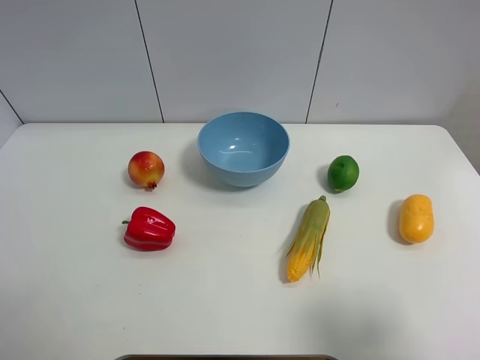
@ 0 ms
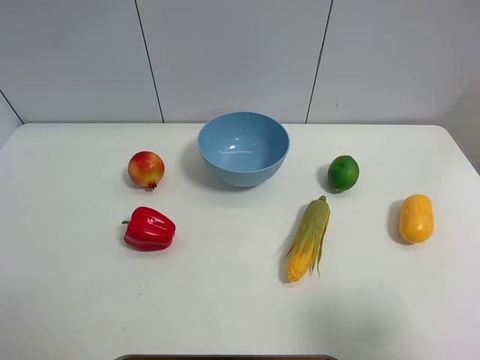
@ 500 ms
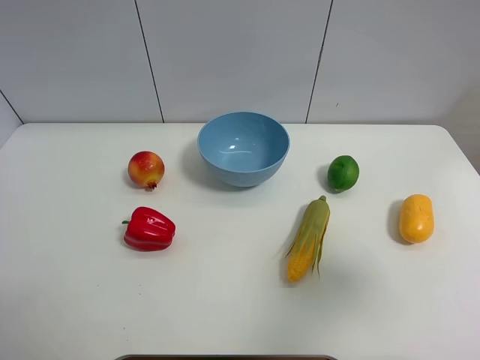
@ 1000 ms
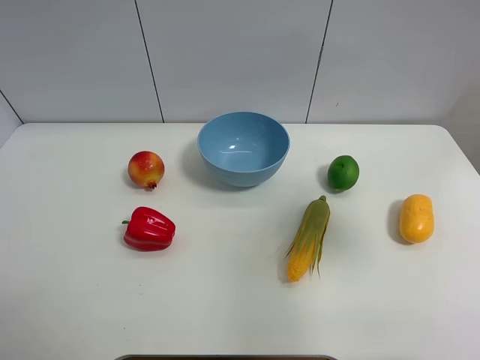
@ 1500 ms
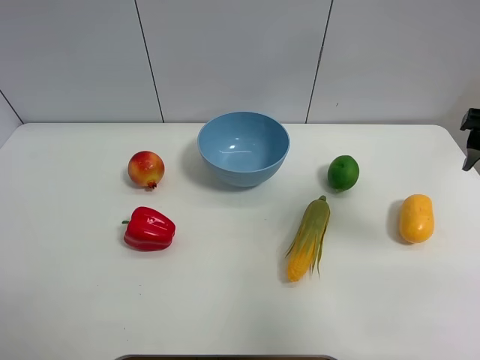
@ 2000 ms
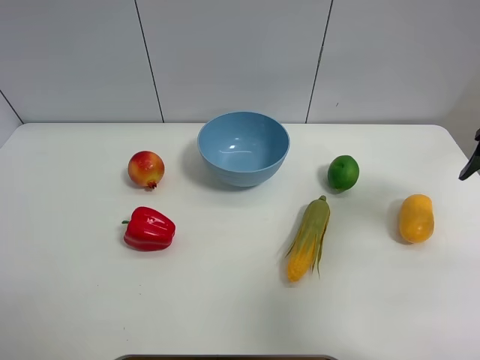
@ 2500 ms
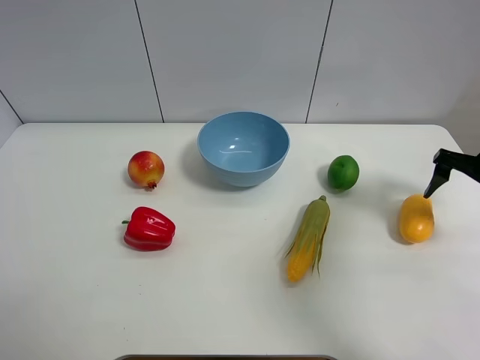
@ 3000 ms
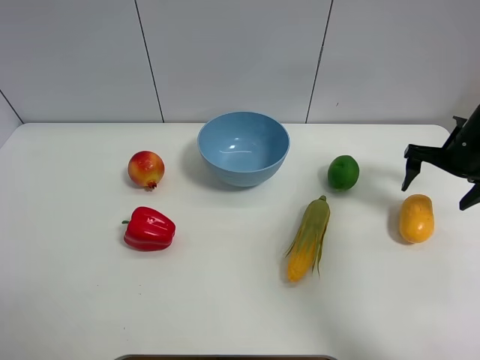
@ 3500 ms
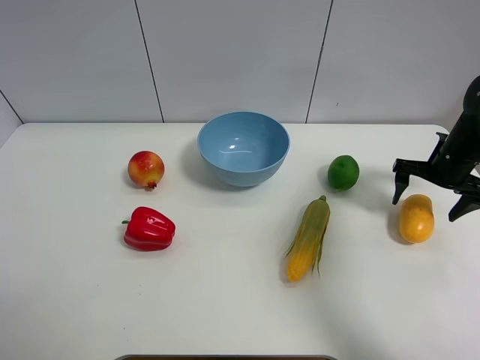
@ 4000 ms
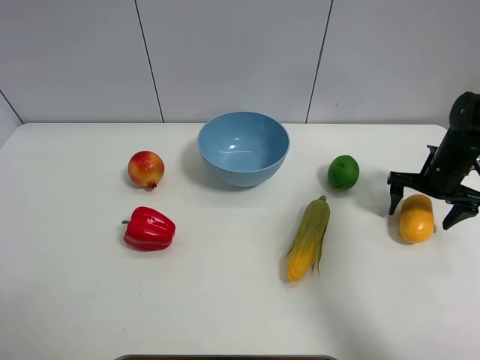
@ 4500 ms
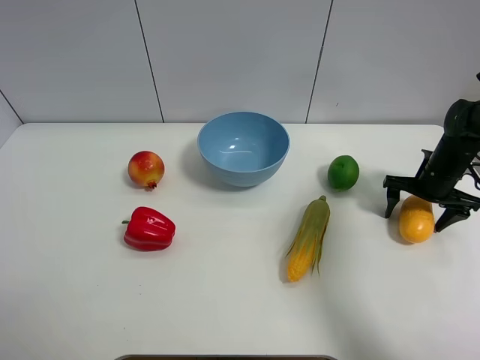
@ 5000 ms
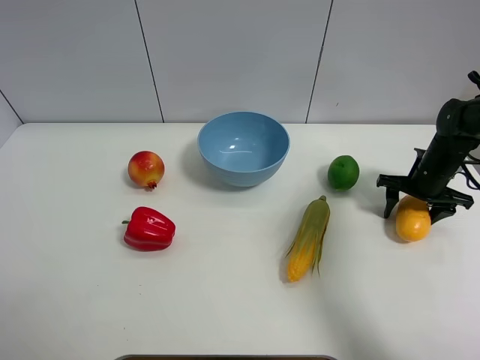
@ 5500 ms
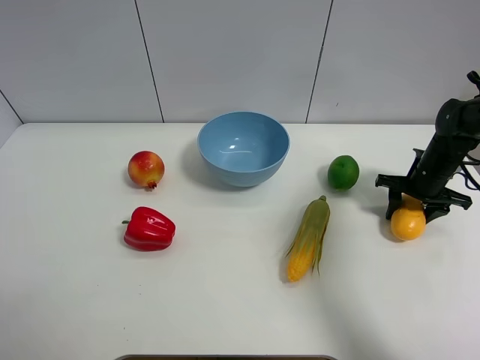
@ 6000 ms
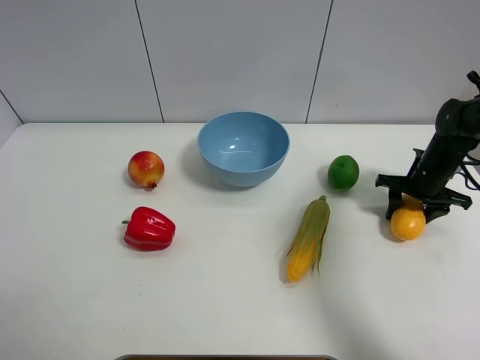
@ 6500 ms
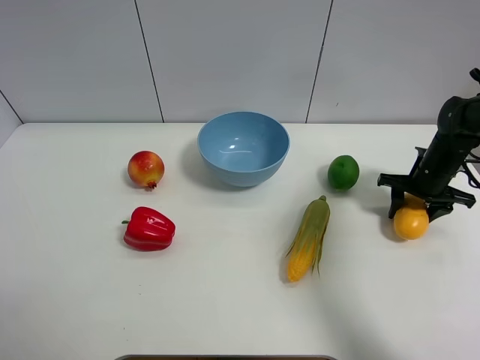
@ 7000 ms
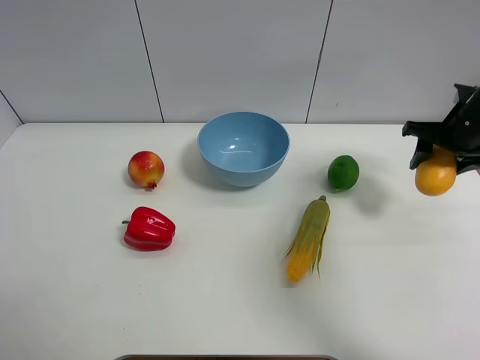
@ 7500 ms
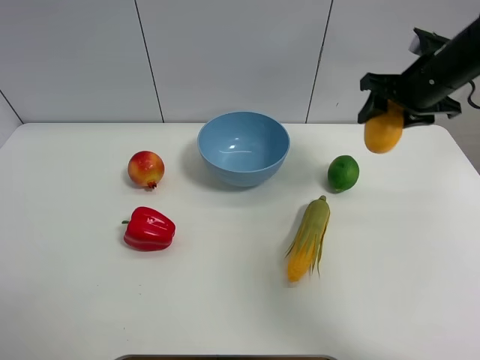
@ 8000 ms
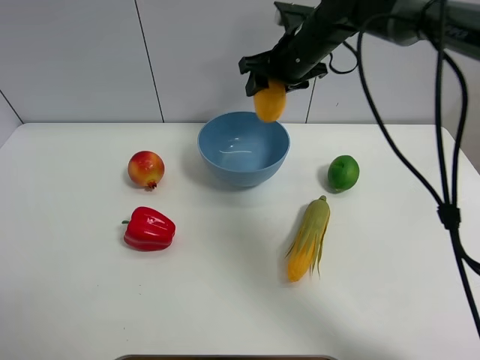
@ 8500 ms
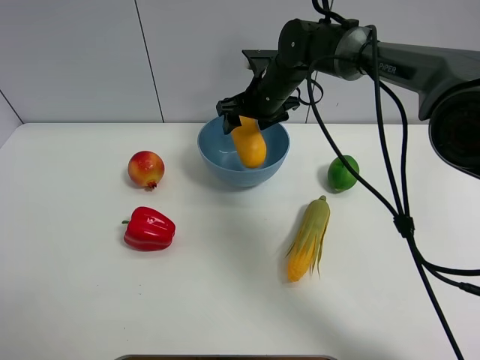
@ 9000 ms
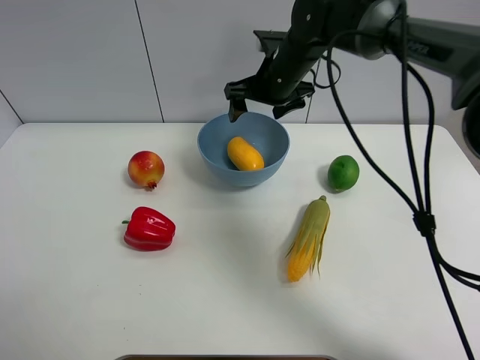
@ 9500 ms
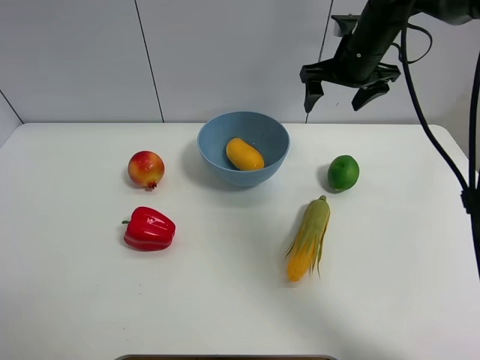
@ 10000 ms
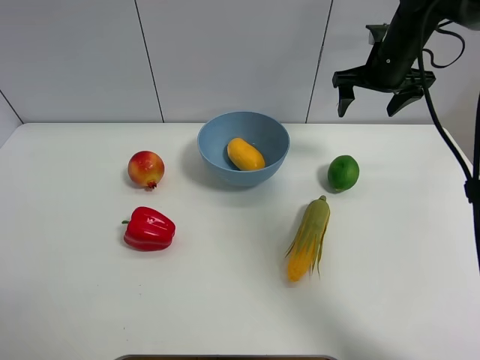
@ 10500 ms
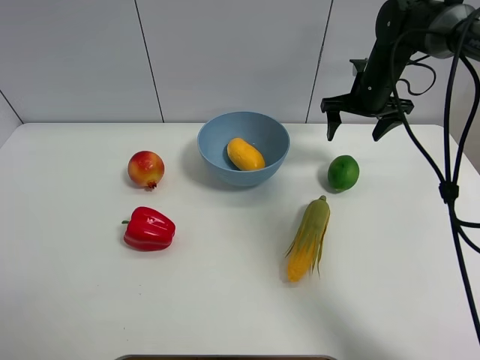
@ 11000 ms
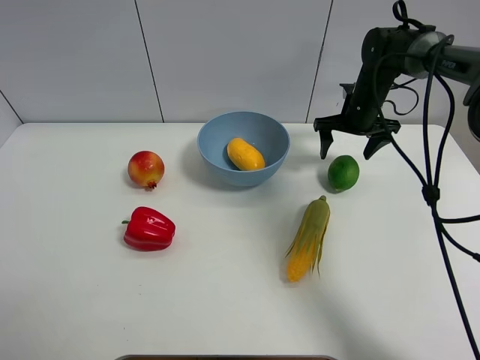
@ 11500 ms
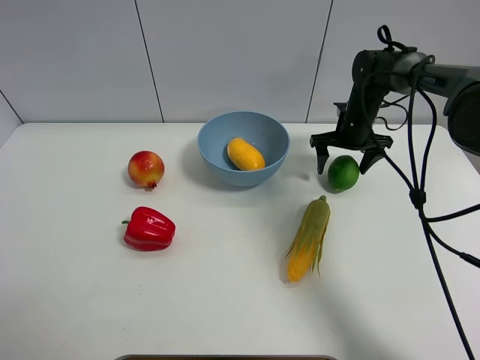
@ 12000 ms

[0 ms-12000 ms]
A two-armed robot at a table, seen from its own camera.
Task of the whole recording: Put the three fruits on the table into a bowl.
Step, 0 ms to 5500 ms: Grasp the mango with right gripper.
Step, 6000 ms to 9000 ms: Place the mango in the blue bowl with right gripper.
0 ms to 2000 ms: The right gripper travels forward by about 25 cm.
2000 ms to 4000 ms: The right gripper is displaced downward and forward by some 20 cm.
4000 ms to 6000 ms: The right gripper closes its fingers.
6000 ms to 8000 ms: The right gripper is displaced upward and to the left by about 20 cm.
8000 ms to 10000 ms: The right gripper heads forward, covering some 5 cm, reaches roughly 20 cm to the left, then returns, and opens its fingers.
10000 ms to 12000 ms: The right gripper travels downward by some 15 cm.

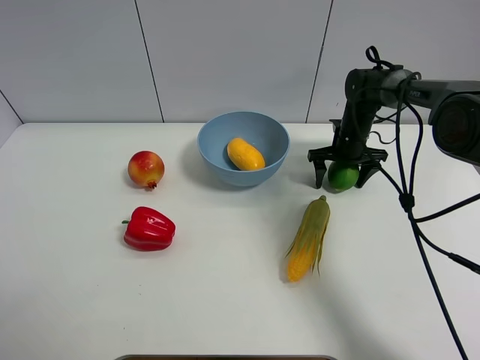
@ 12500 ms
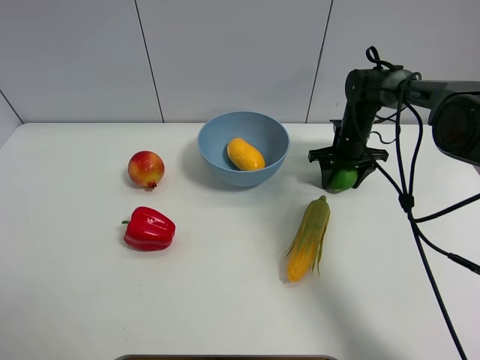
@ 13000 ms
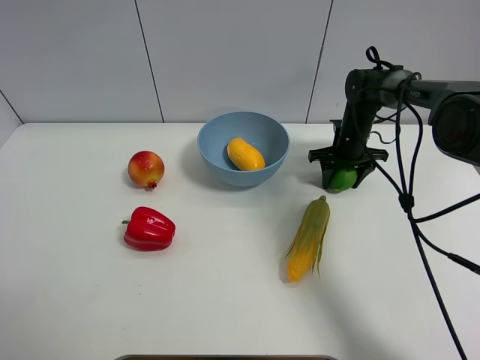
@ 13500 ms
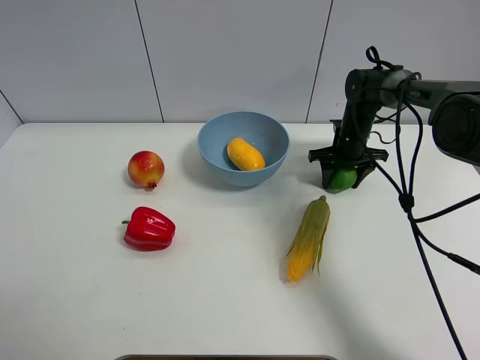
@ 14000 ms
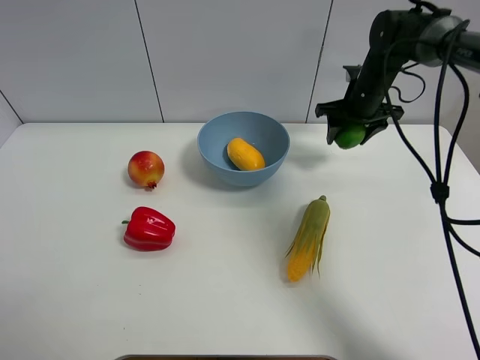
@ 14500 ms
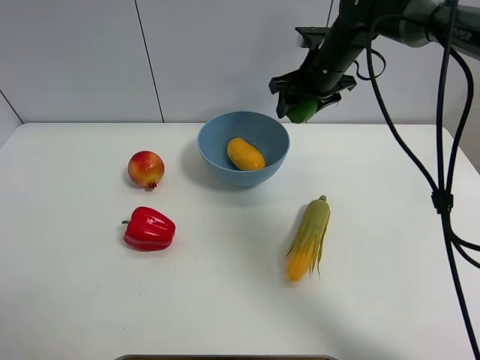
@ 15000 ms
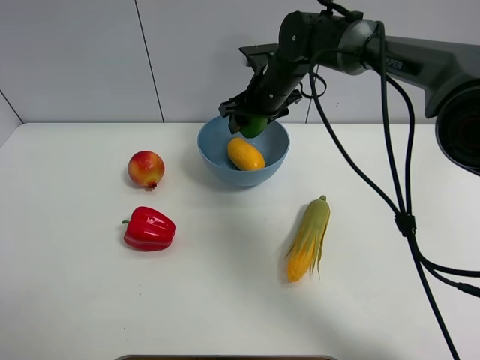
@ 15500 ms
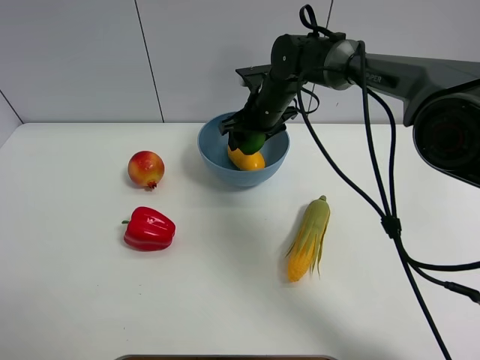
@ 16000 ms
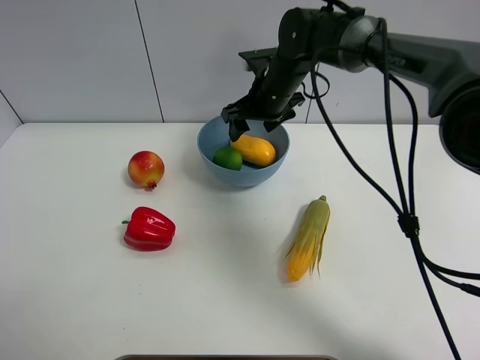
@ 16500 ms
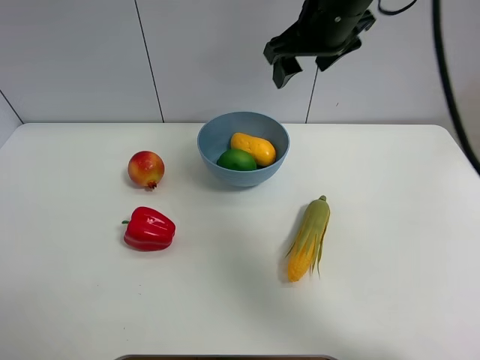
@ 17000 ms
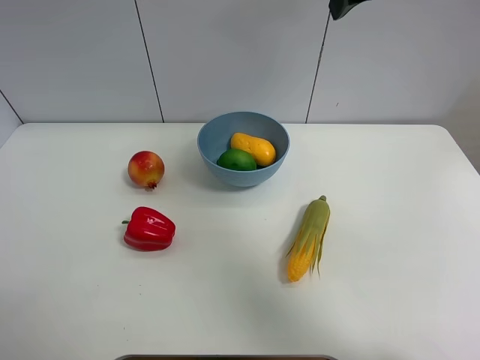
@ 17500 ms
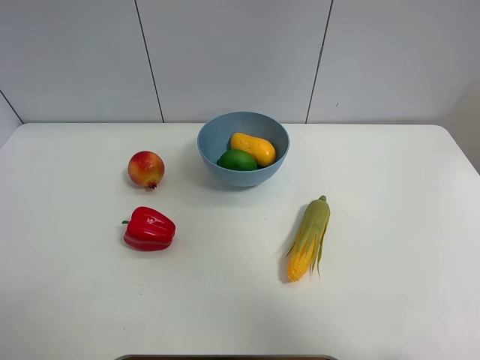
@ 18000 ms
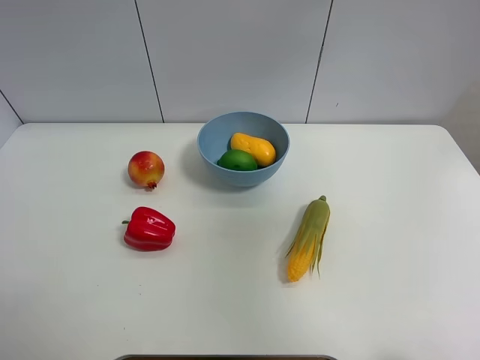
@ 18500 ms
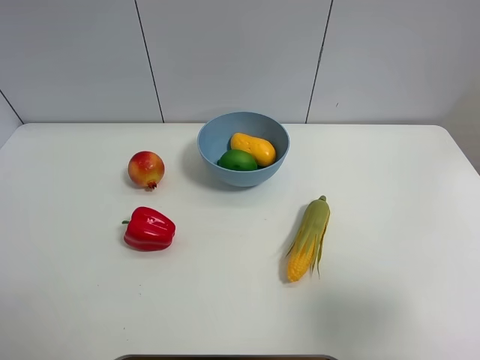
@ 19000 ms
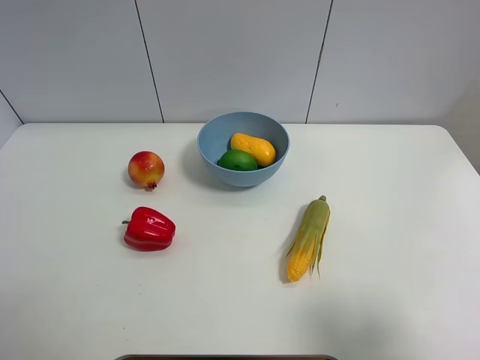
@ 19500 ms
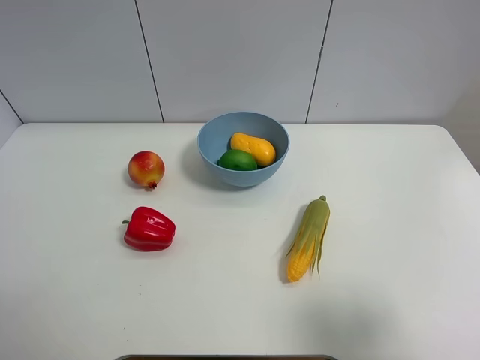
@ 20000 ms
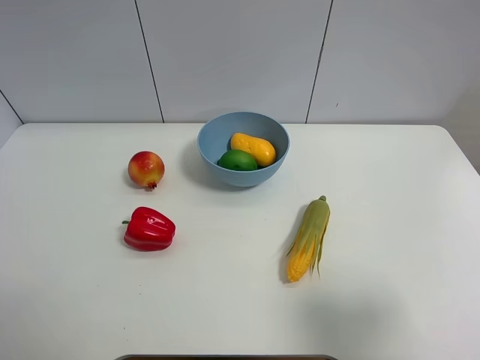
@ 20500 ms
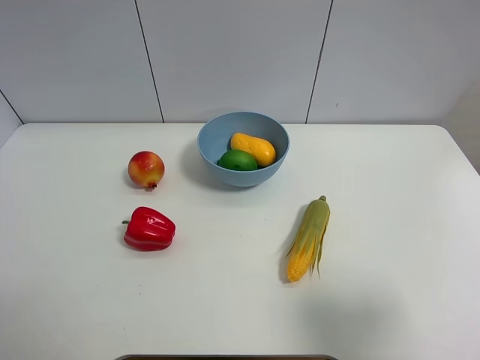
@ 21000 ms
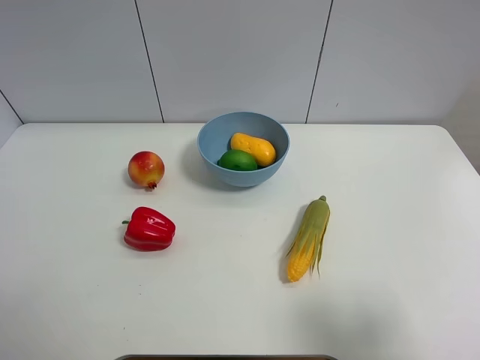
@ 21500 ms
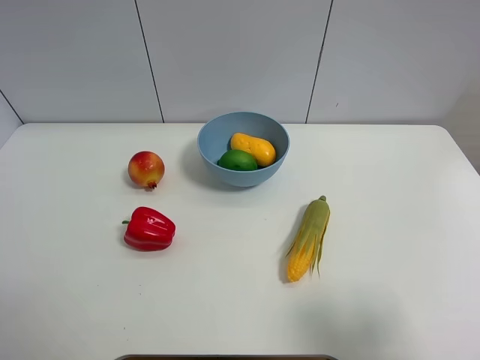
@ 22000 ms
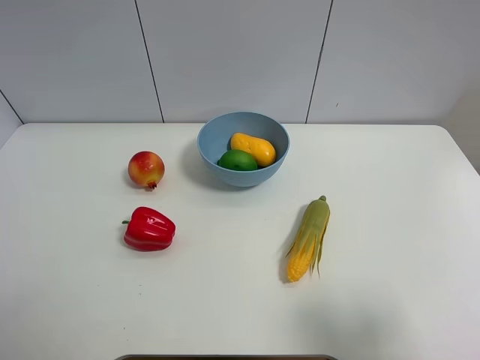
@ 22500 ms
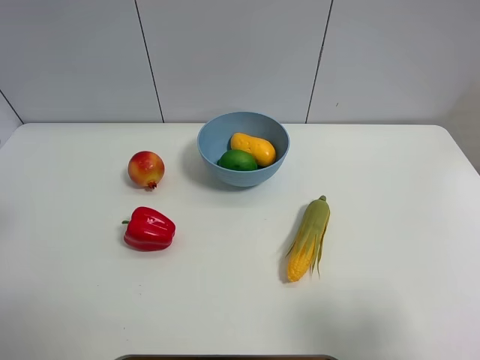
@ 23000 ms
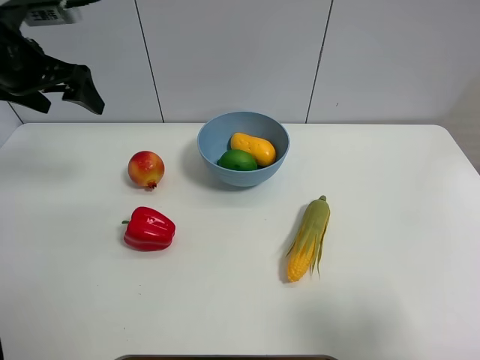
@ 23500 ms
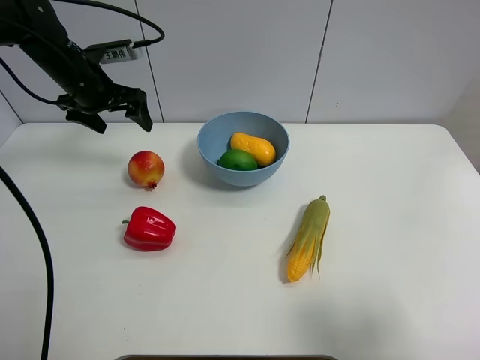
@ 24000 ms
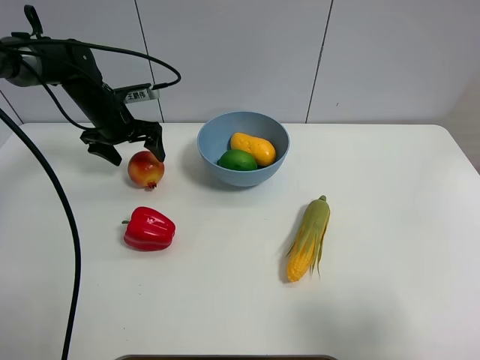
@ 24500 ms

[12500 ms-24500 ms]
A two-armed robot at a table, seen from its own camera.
Task of the whole recording: Put the three fruits on the table into a bowl.
Step, 13500 ms to 16000 ms: Place the green lemon in the blue bowl with right gripper.
12500 ms to 14500 ms: The right gripper goes some 10 cm upward, and closes.
14500 ms to 16500 ms: The right gripper is displaced to the left by about 15 cm.
16500 ms to 18500 ms: The right gripper shifts approximately 40 cm backward, to the right and upward.
18500 ms to 20500 ms: The right gripper travels downward and backward by roughly 15 cm, and opens.
22500 ms to 24500 ms: The left gripper heads forward and downward, covering roughly 40 cm.

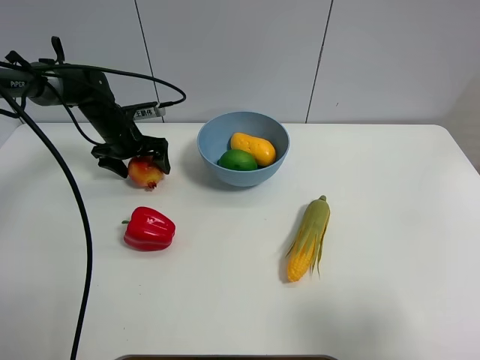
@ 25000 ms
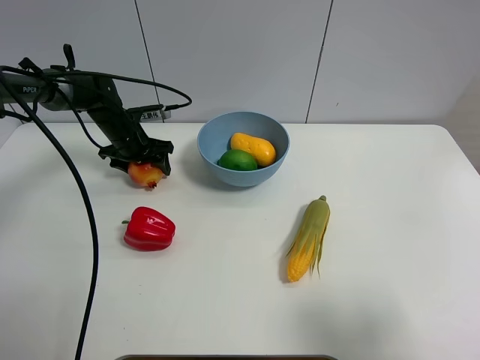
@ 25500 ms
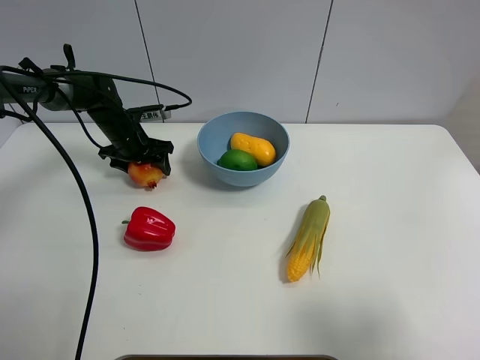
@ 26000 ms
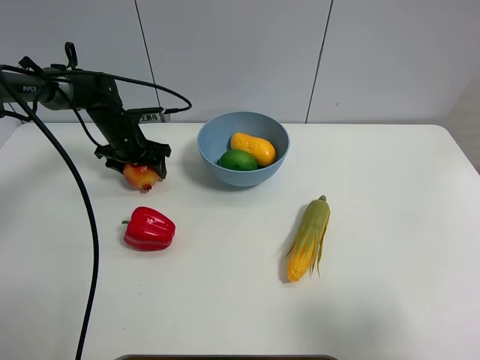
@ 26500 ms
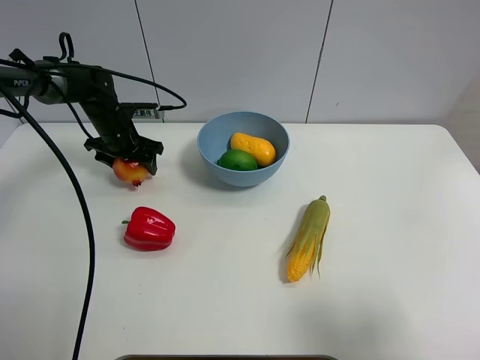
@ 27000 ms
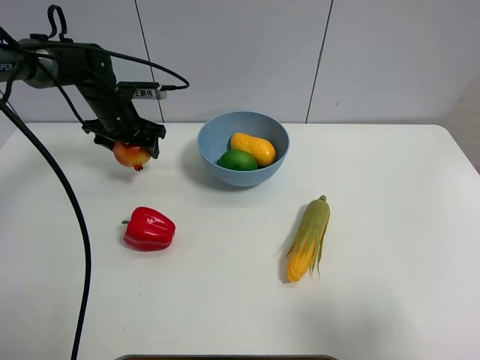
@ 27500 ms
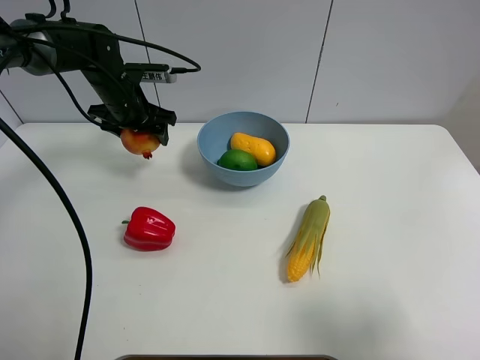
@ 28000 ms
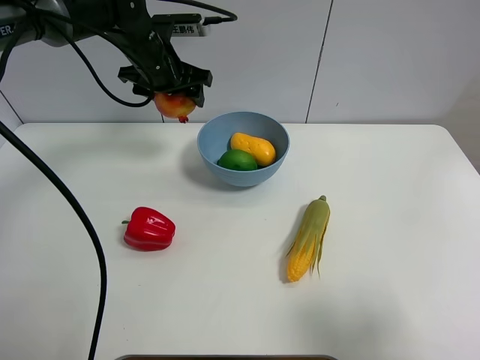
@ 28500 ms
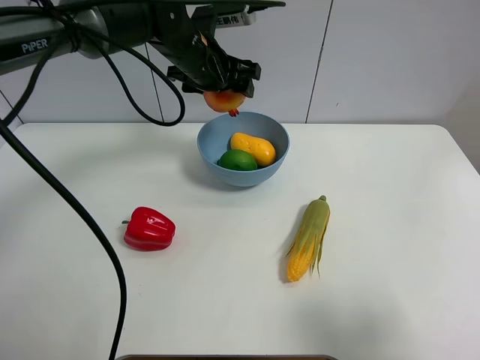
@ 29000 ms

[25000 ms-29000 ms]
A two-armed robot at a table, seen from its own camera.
Task of the whole recording: Put the three fruits on the table into a bowl.
25000 ms to 27000 ms: The left gripper closes.
27000 ms to 29000 ms: The left gripper is displaced to the right and upward by about 25 cm.
